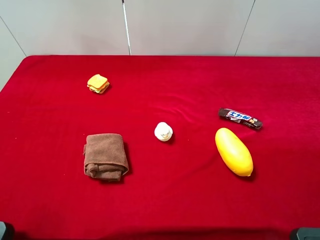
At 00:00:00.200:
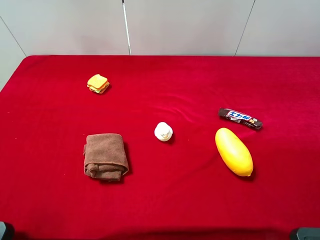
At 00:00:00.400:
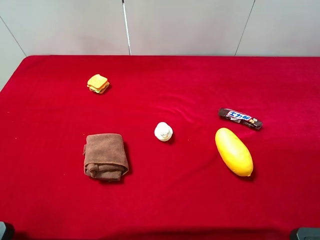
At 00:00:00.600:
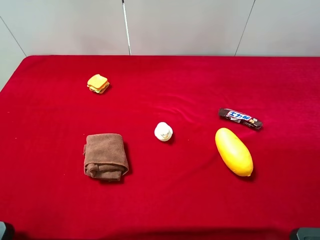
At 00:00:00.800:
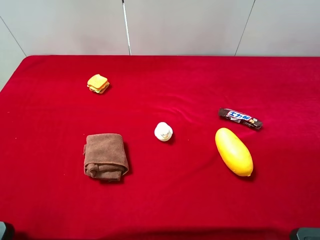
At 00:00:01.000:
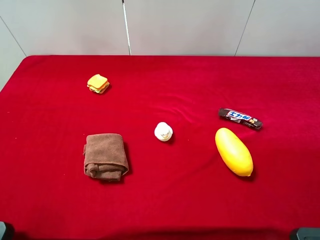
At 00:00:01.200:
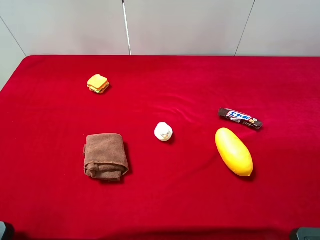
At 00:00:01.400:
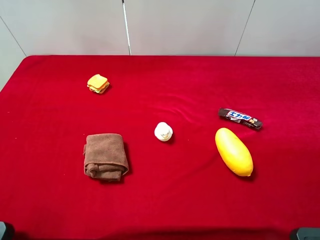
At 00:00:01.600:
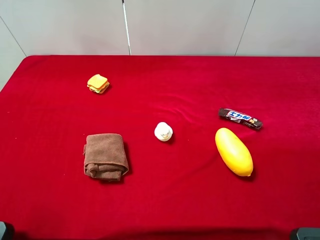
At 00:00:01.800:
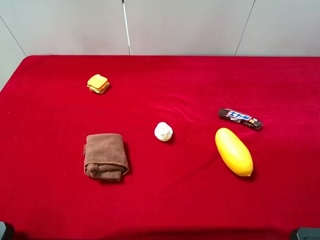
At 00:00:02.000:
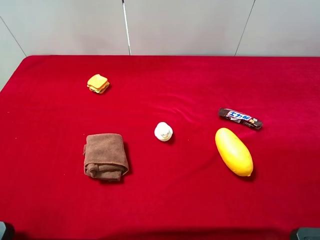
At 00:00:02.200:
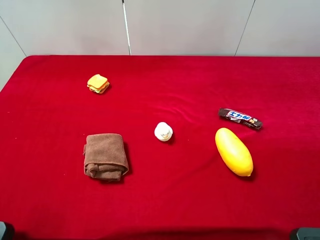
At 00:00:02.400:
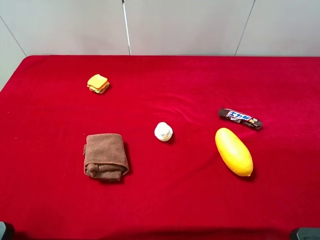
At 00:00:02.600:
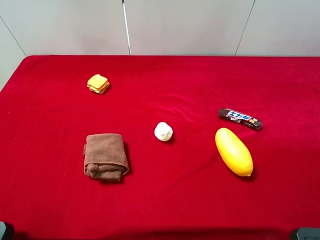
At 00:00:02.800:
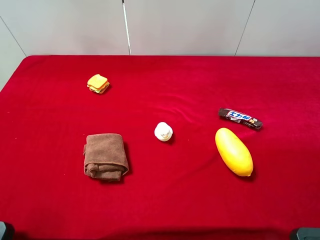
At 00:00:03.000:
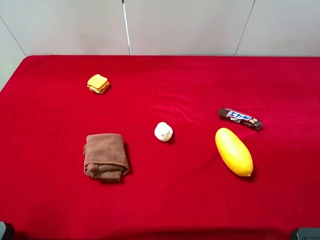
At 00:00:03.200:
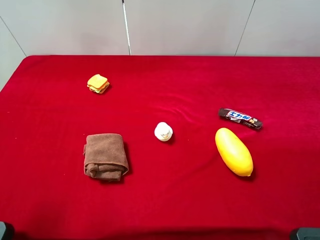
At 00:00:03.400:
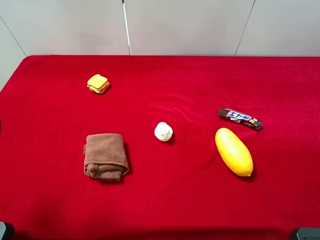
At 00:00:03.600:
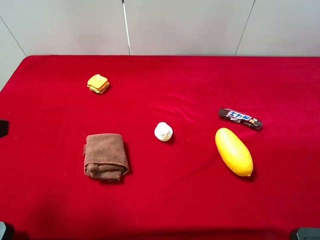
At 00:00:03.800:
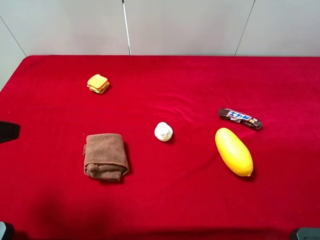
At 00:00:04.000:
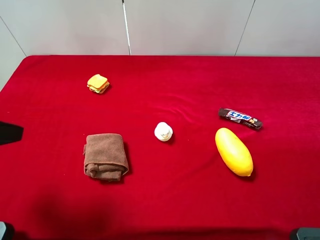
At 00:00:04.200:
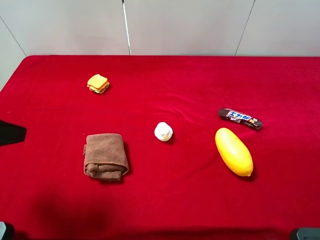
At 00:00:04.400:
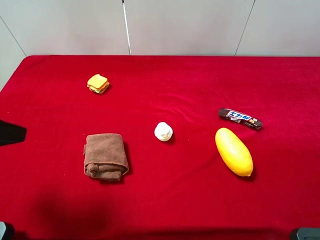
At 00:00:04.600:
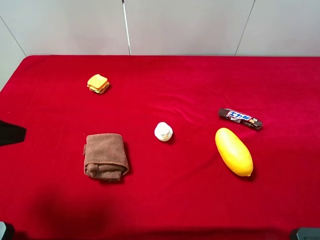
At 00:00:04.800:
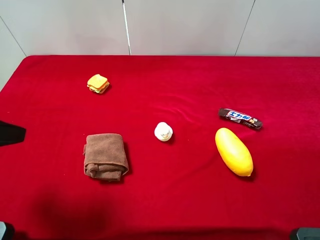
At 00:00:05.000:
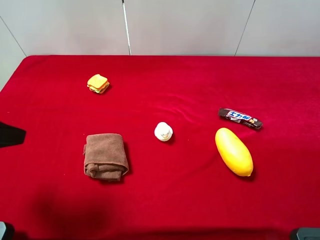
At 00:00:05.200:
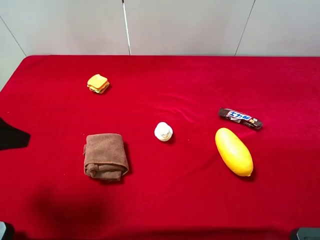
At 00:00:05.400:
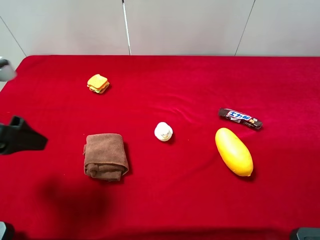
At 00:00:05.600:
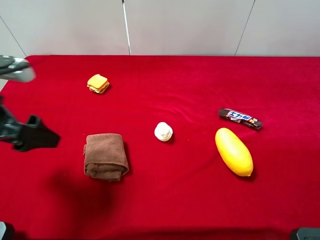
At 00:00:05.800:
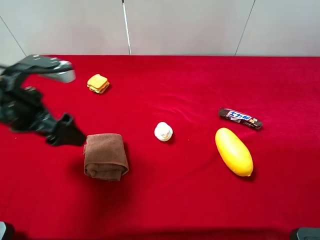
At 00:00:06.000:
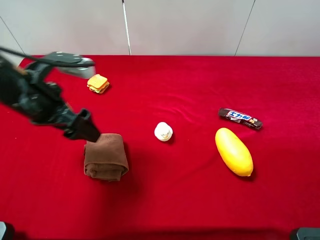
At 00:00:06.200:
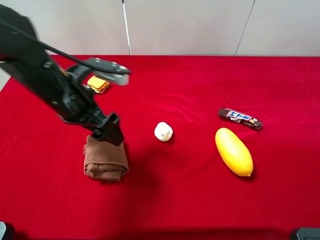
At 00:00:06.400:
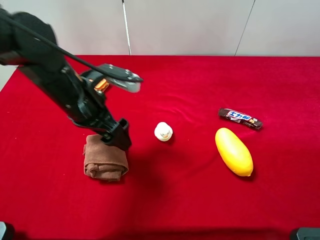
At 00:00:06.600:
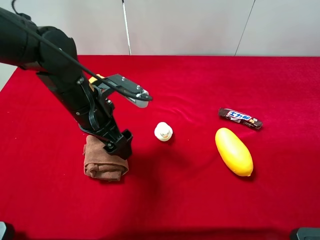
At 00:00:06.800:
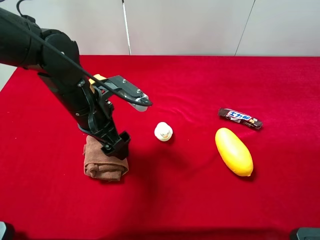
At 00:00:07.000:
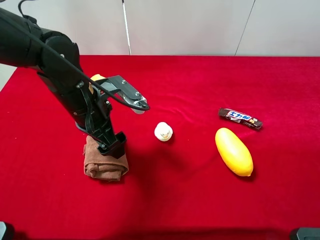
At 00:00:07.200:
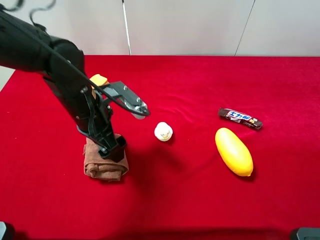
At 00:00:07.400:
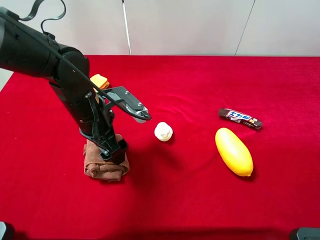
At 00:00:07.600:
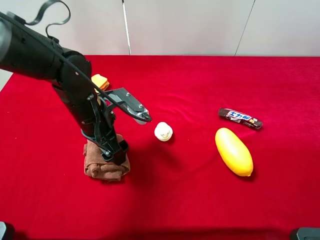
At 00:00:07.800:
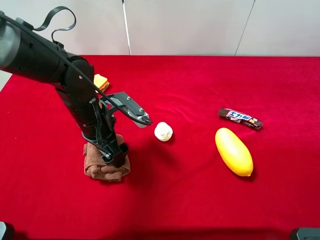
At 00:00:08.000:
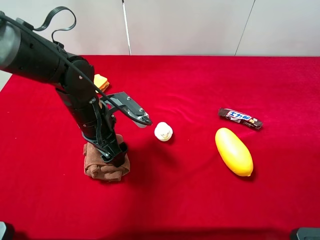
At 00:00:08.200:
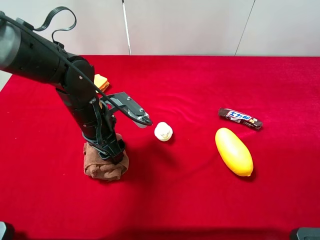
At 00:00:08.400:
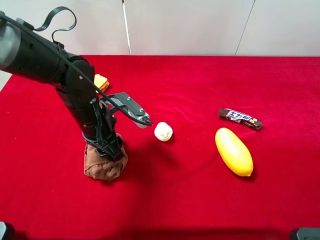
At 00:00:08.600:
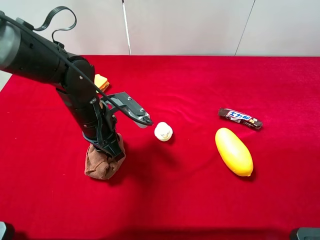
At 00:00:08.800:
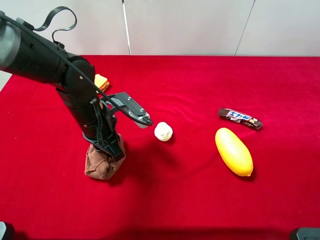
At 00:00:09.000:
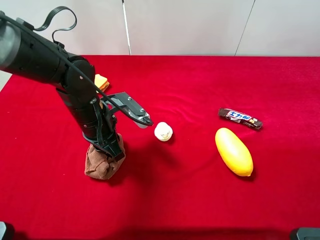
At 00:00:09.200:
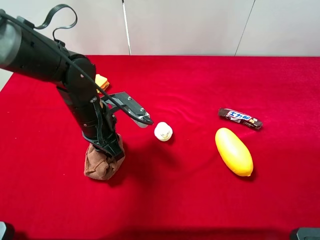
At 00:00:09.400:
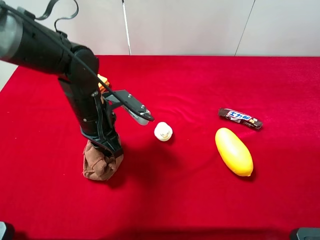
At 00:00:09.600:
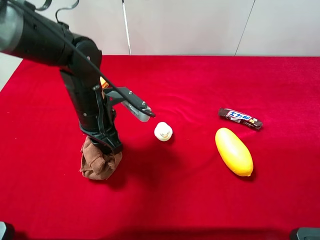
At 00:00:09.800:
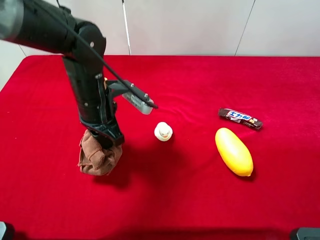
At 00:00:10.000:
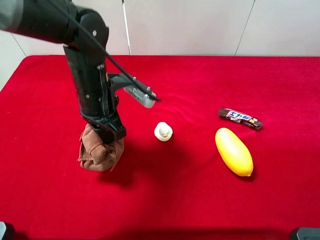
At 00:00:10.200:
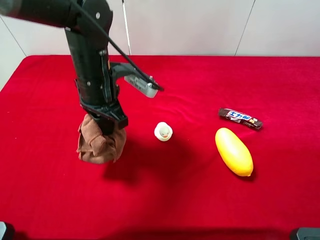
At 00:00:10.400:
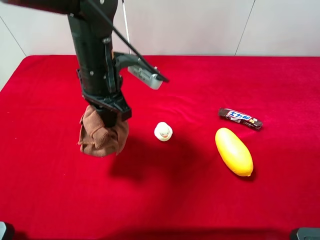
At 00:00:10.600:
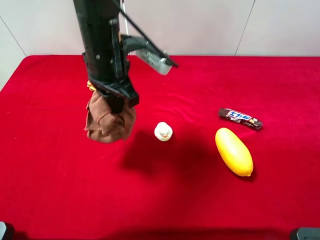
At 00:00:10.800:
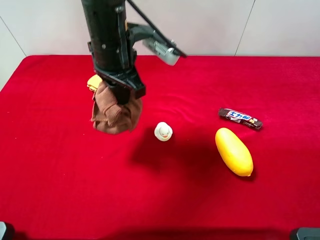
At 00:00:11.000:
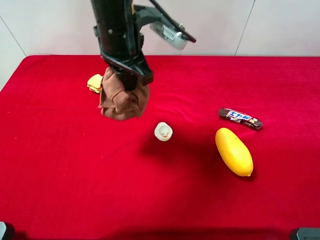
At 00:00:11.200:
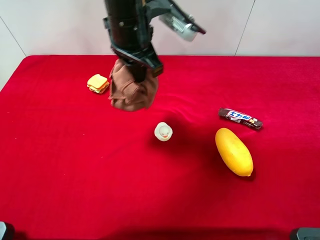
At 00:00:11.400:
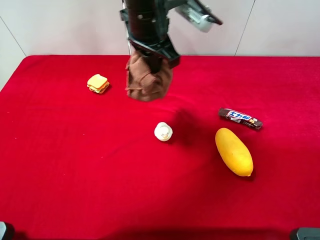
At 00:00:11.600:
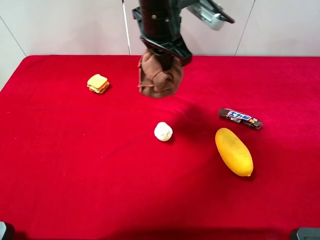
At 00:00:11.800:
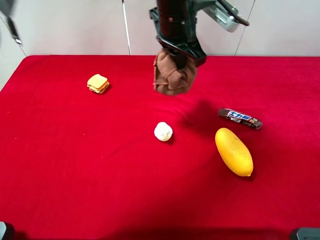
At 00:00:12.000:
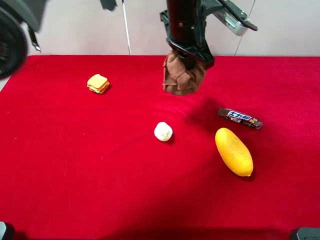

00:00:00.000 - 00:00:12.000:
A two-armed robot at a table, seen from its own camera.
Task of the whole recording: the gripper move the object.
00:00:00.000 - 00:00:01.600: Both grippers stay put.
00:00:03.000 - 00:00:04.400: The left gripper travels forward by roughly 10 cm.
00:00:04.400 - 00:00:06.000: The left gripper heads forward, to the right and downward, covering approximately 15 cm.
00:00:06.000 - 00:00:07.600: The left gripper moves downward and to the right, roughly 10 cm.
00:00:07.600 - 00:00:09.000: The left gripper closes up.
00:00:09.000 - 00:00:10.400: The left gripper travels upward by some 10 cm.
00:00:10.400 - 00:00:12.000: The left gripper shifts roughly 15 cm to the right and forward.

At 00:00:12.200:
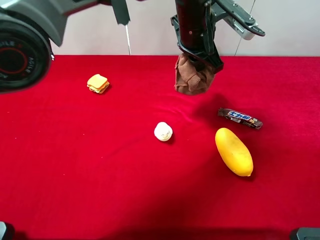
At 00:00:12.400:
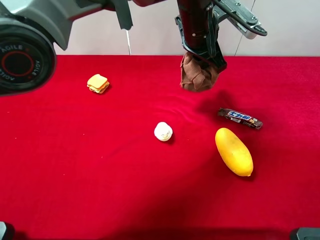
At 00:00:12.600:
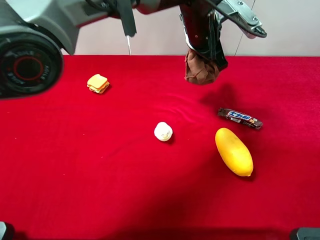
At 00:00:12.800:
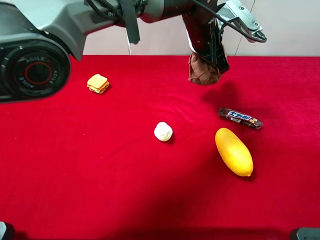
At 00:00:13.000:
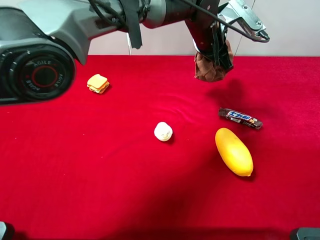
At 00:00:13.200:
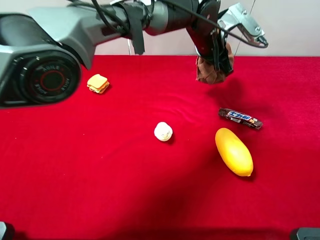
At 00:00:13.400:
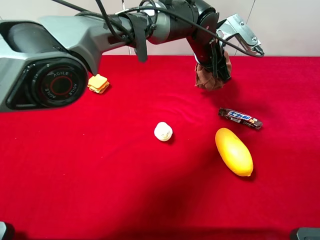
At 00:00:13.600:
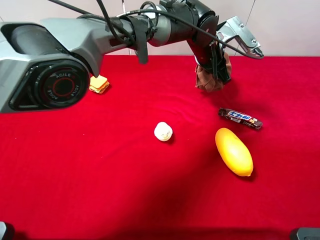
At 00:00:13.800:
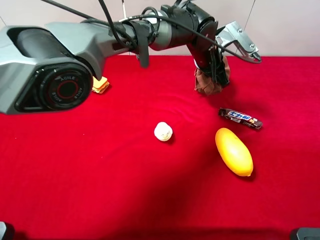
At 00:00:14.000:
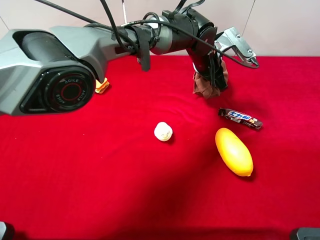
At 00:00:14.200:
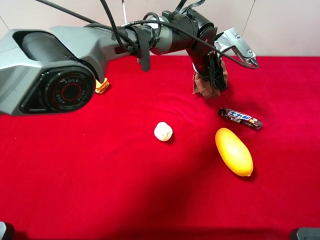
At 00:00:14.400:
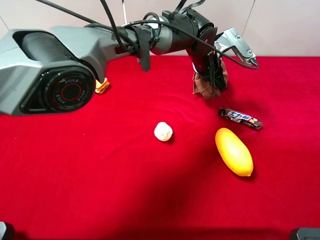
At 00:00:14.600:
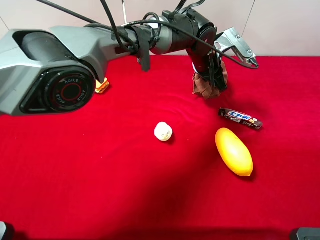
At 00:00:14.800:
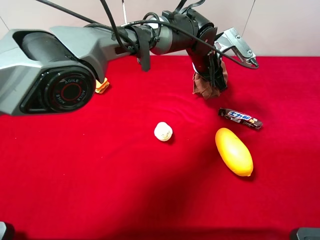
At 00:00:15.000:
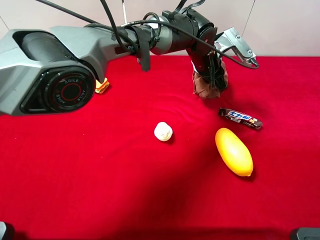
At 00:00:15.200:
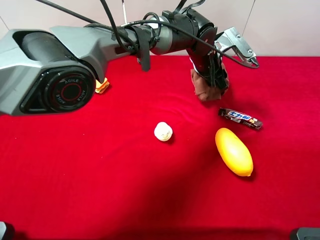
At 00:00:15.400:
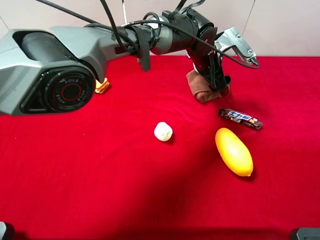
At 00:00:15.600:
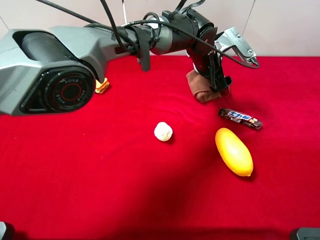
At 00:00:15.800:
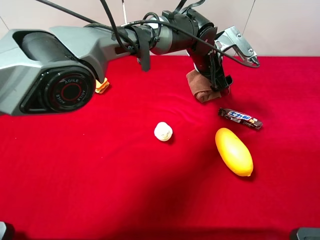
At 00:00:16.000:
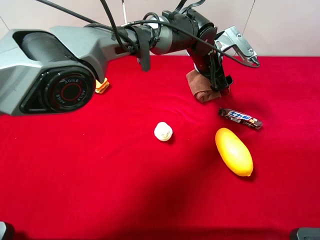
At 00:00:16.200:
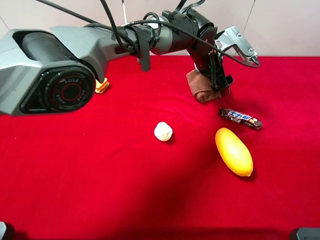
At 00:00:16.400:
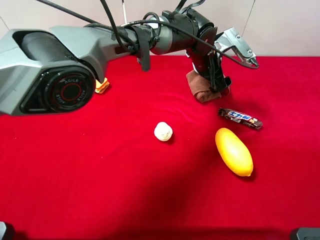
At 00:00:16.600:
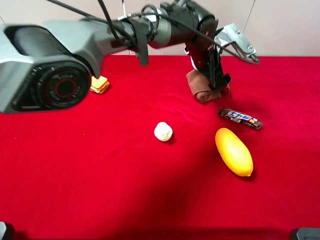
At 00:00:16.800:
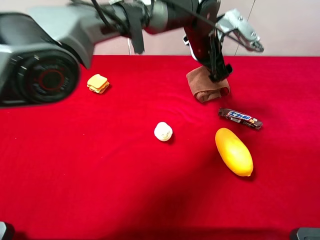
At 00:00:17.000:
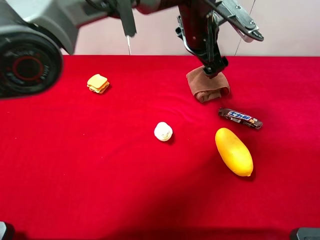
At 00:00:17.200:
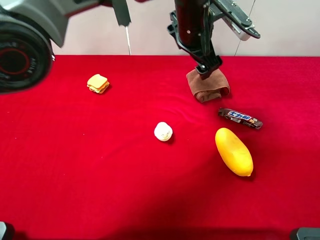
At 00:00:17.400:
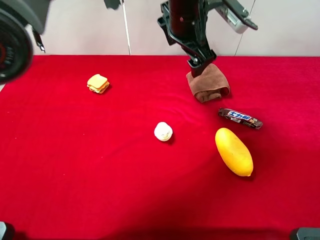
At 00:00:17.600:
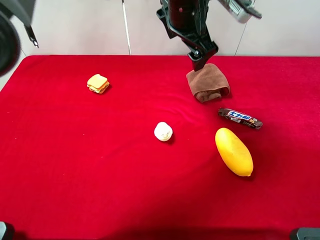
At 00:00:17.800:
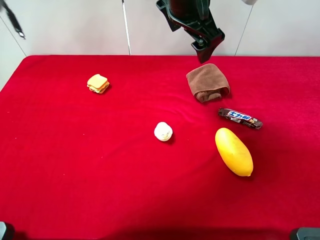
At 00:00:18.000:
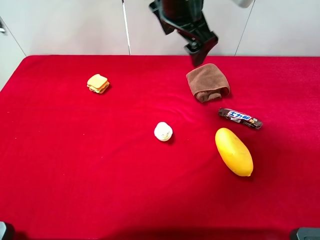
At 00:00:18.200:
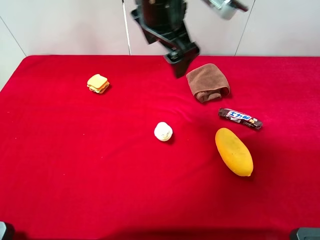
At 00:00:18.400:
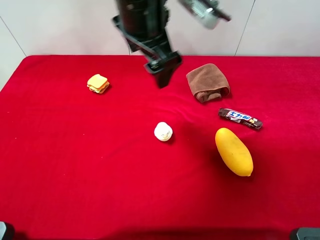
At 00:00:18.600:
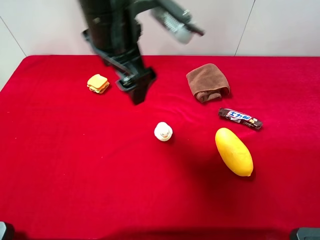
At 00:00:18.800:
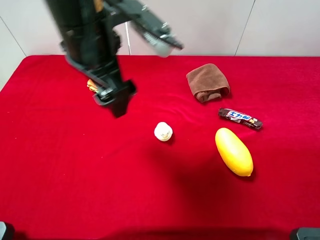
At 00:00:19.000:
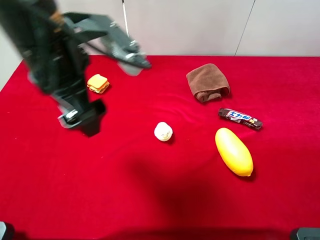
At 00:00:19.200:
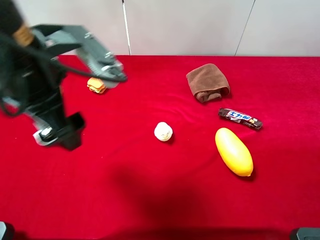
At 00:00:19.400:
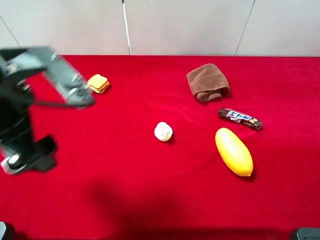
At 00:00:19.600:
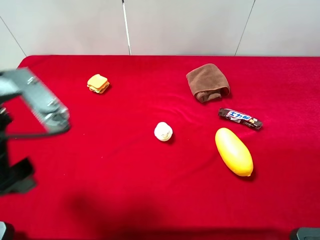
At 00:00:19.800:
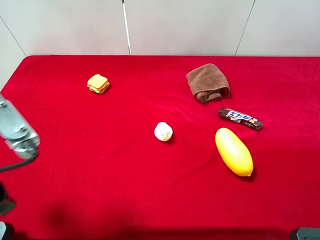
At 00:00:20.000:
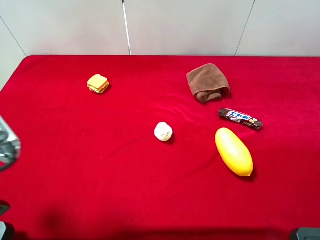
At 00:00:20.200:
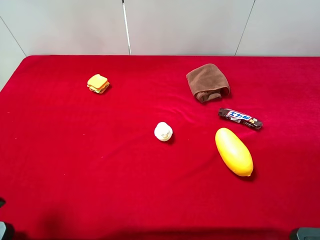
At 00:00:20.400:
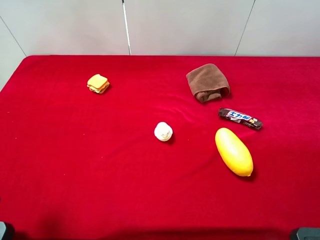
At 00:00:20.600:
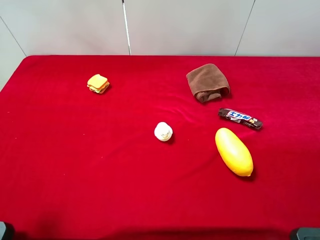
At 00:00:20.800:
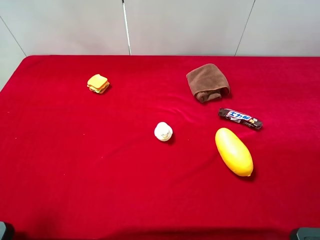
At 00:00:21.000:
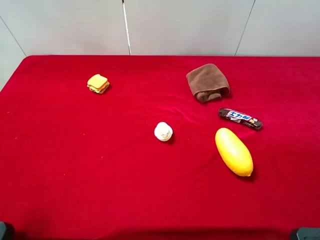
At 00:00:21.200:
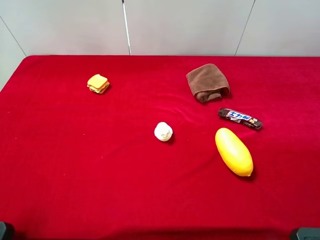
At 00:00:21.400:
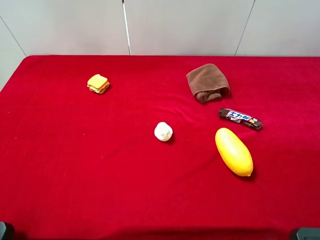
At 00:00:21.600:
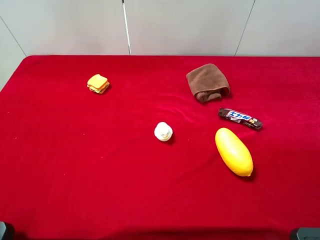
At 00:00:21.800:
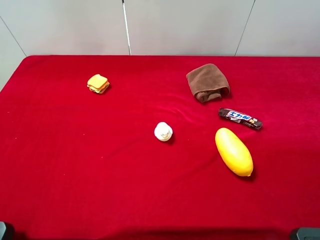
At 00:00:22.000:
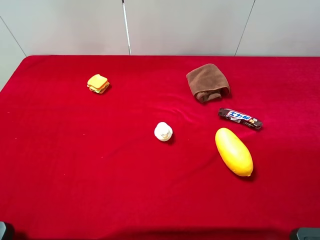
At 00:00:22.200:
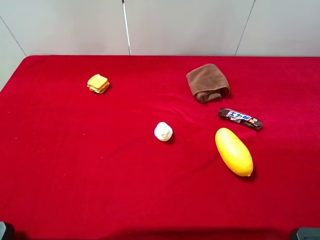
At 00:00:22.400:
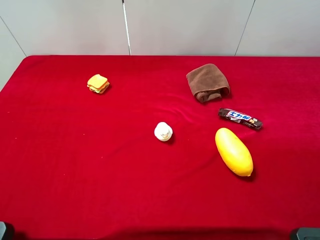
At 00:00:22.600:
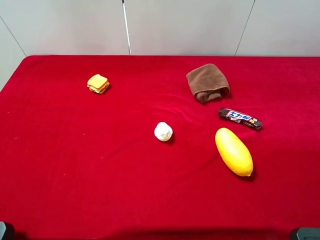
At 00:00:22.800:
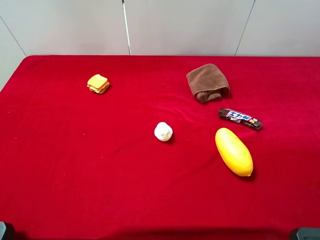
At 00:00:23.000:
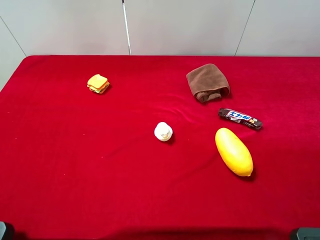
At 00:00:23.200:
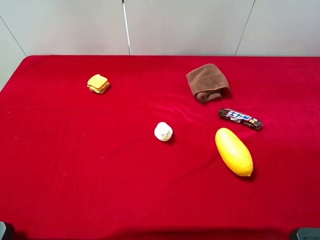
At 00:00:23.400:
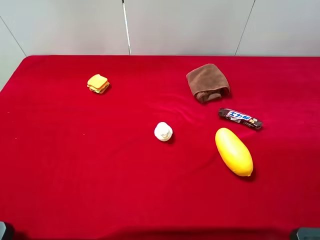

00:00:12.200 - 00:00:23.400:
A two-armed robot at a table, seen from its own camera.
Task of the whole recording: the gripper move the object.
00:00:12.200 - 00:00:13.800: The left gripper shifts some 10 cm downward.
00:00:13.800 - 00:00:15.400: The left gripper opens up.
00:00:15.400 - 00:00:17.000: The left gripper goes about 10 cm upward.
00:00:17.000 - 00:00:18.600: The left gripper goes about 20 cm to the left, backward and upward.
00:00:18.600 - 00:00:20.200: The left gripper moves to the left and backward, roughly 25 cm.
